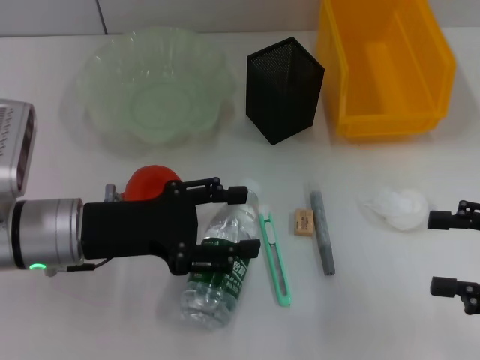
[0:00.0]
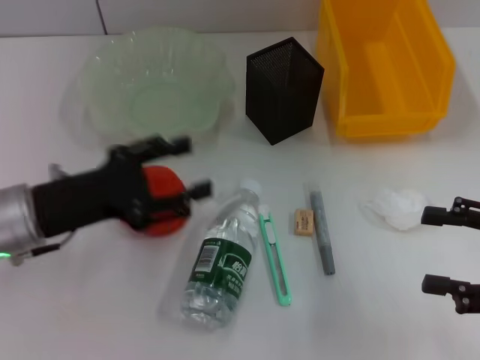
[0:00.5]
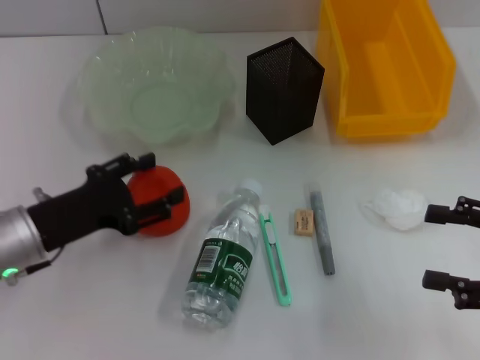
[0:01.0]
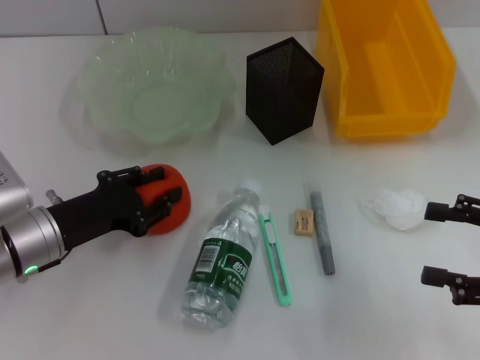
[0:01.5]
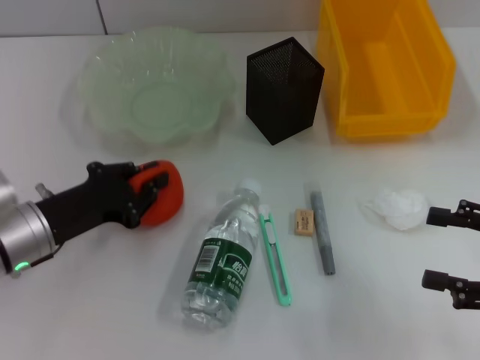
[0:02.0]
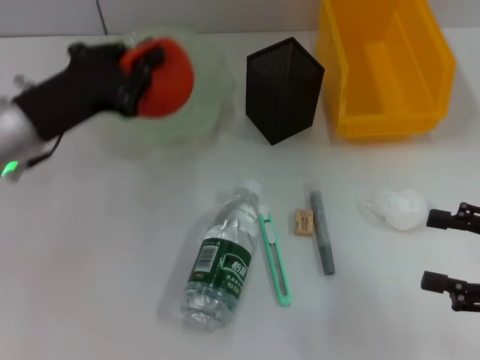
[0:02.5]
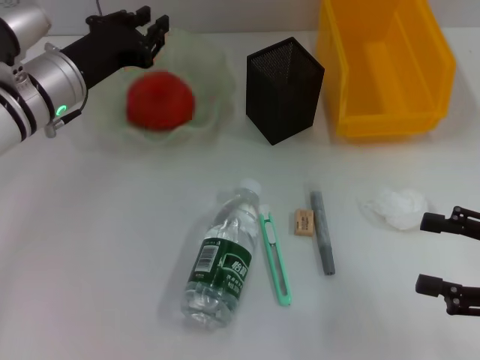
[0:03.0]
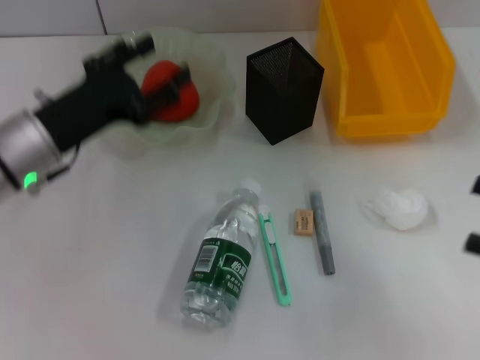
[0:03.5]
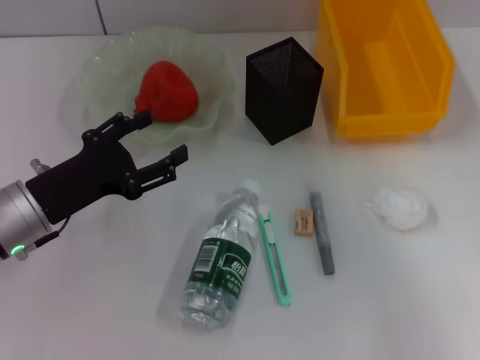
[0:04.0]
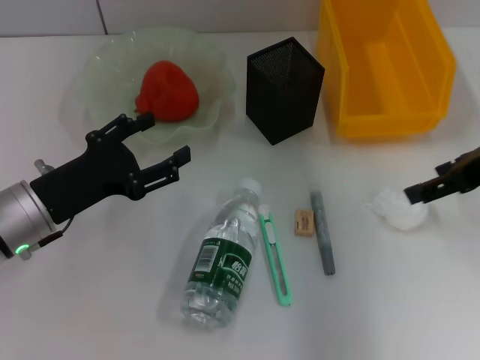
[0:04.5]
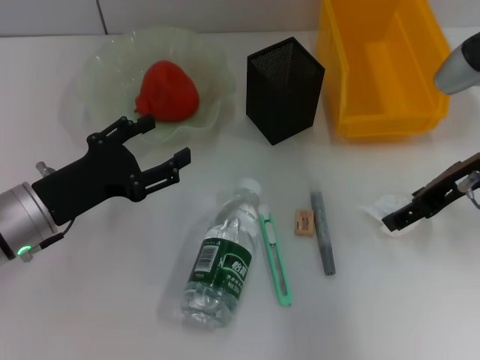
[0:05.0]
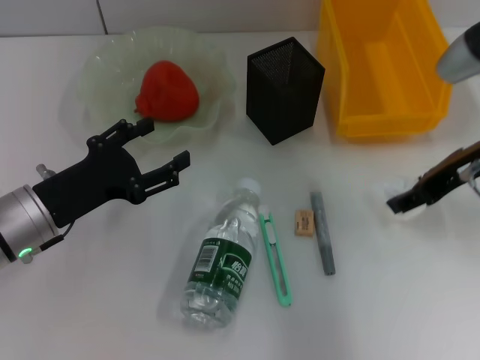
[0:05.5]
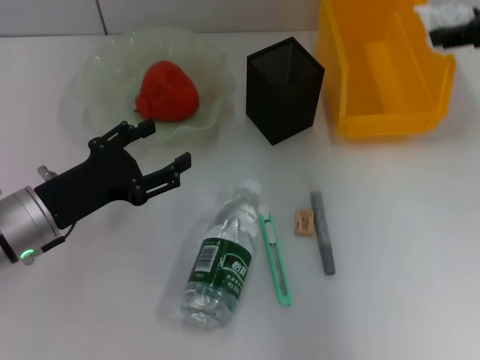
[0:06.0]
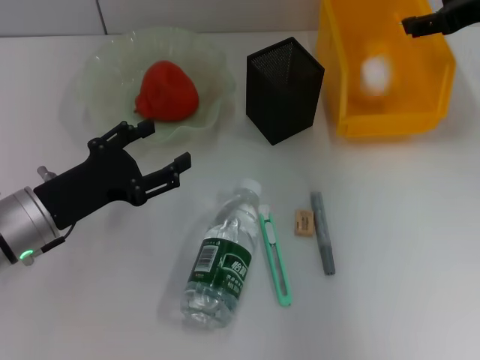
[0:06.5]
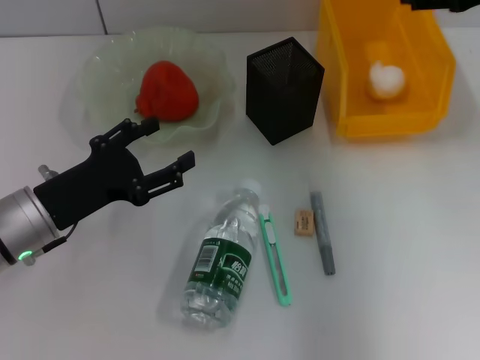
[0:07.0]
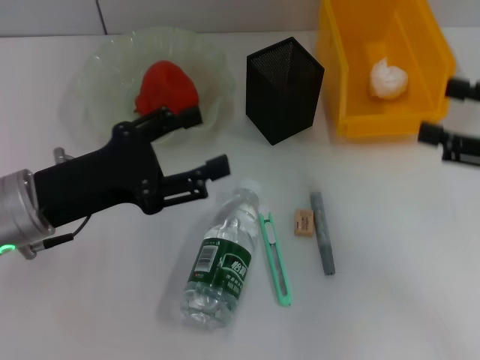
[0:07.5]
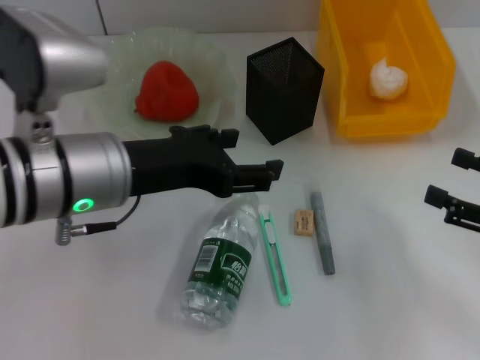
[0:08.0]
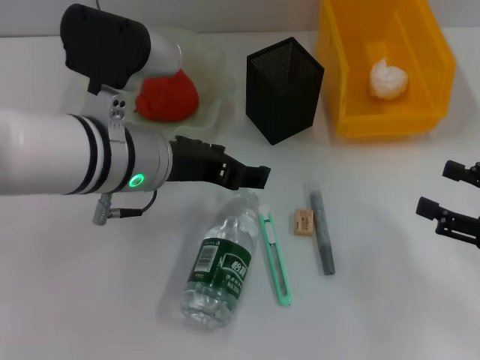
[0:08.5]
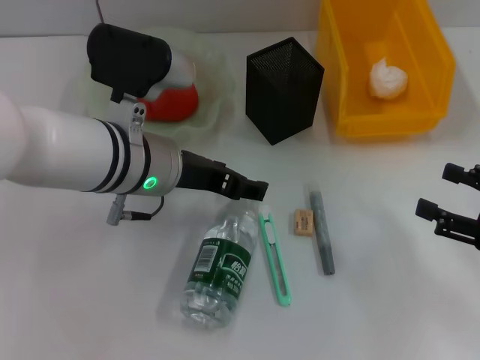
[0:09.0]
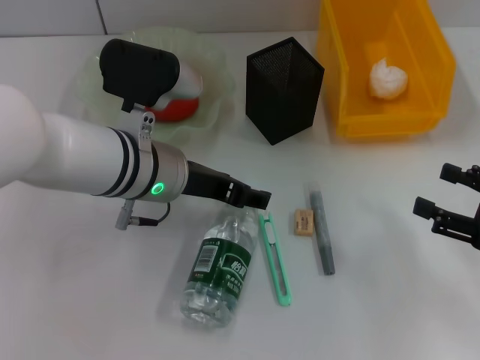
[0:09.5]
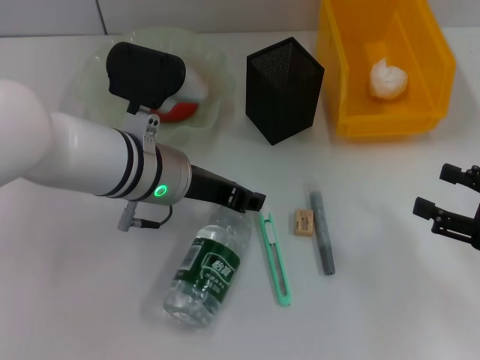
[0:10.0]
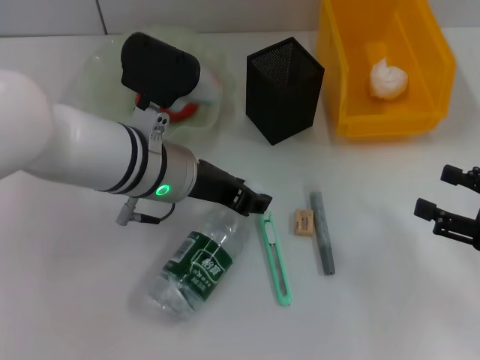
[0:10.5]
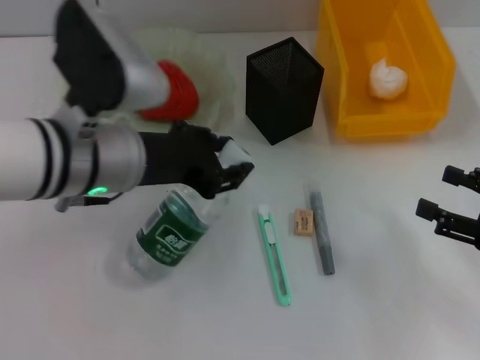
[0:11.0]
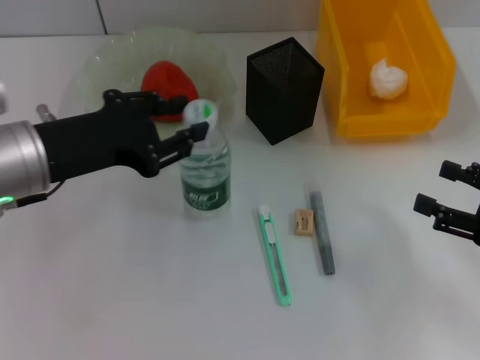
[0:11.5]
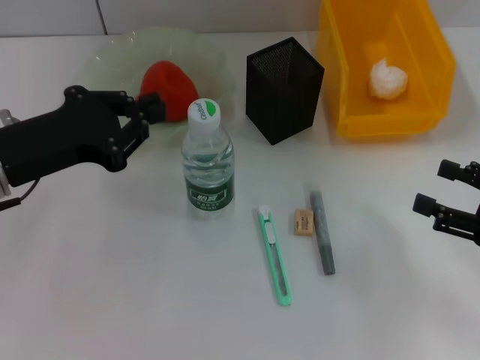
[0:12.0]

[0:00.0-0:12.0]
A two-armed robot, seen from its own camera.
Step, 0:00.0 to 0:01.5: Grab the orange with the left hand.
Step, 0:02.0 to 0:02.5: Place the orange into the fruit bowl with the left hand.
Step, 0:03.5 to 0:04.5: Grab the paper ball with the right hand.
Step, 0:05.5 to 0:06.5: Place the paper ball into the trash can with the right hand.
Step, 0:07.0 to 0:10.0: Grab the water bottle with the left hand.
Step, 0:10.5 to 0:11.5: Place the water bottle on the table with the left hand.
0:00.0 to 0:02.0: The left gripper ends up about 5 cm from where it was, and closes its fingers.
0:02.0 to 0:04.0: The left gripper moves some 10 cm forward and comes back, and opens up; the right gripper shifts approximately 15 cm upward.
0:04.0 to 0:06.0: The right gripper travels forward and to the left by about 15 cm, and closes its fingers.
0:06.0 to 0:08.0: The right gripper shifts some 25 cm downward and backward, and opens its fingers. Meanwhile the left gripper is displaced upward and to the right by approximately 15 cm.
0:08.0 to 0:10.0: The left gripper is displaced downward and forward by some 10 cm.
0:10.0 to 0:12.0: The left gripper goes about 15 cm to the left, and closes up.

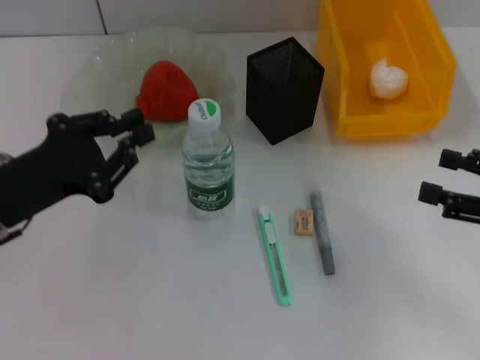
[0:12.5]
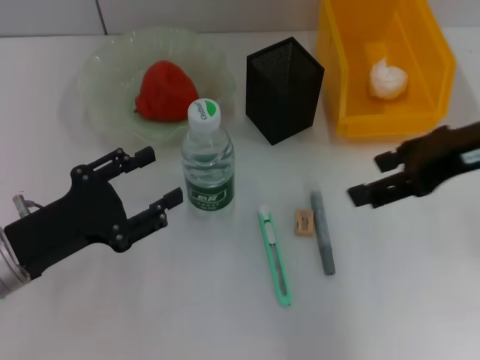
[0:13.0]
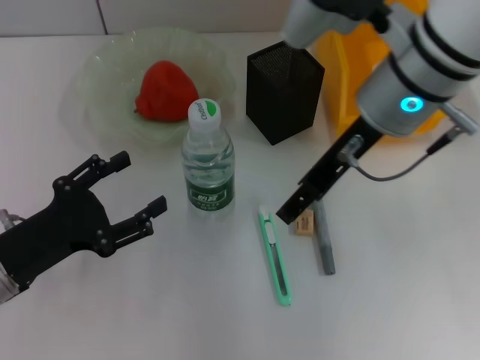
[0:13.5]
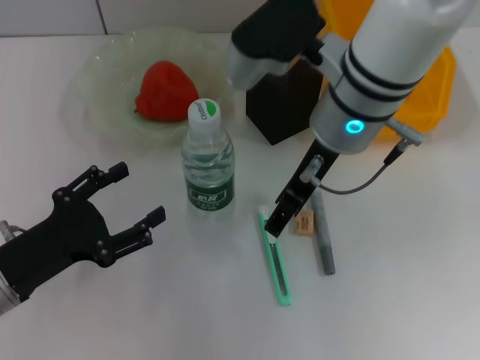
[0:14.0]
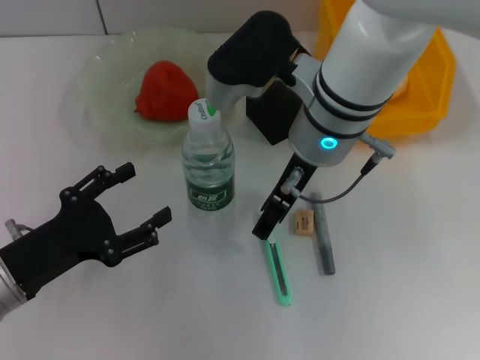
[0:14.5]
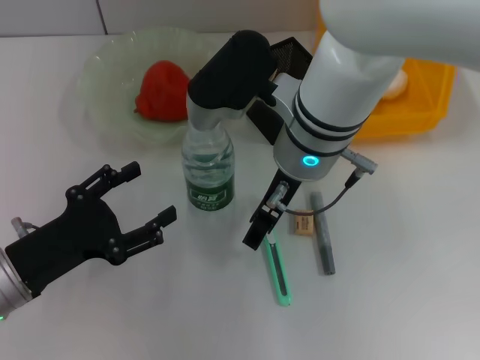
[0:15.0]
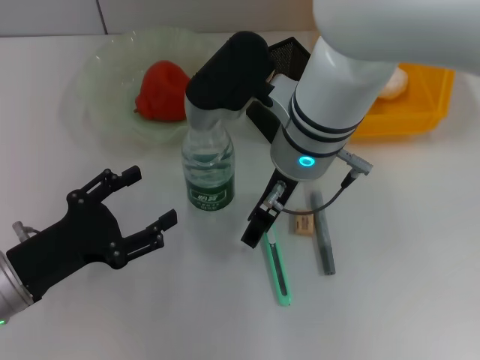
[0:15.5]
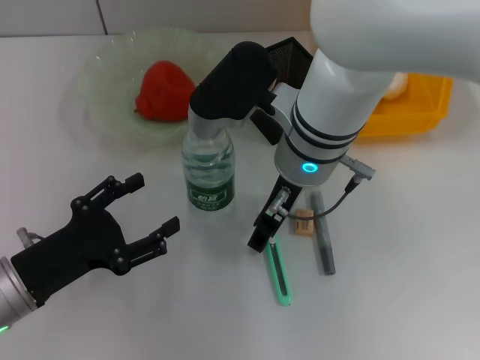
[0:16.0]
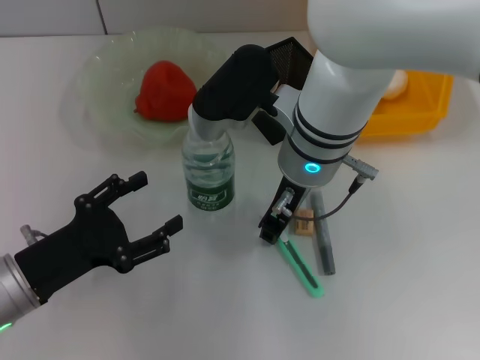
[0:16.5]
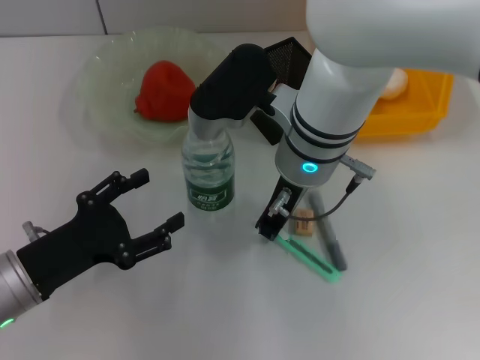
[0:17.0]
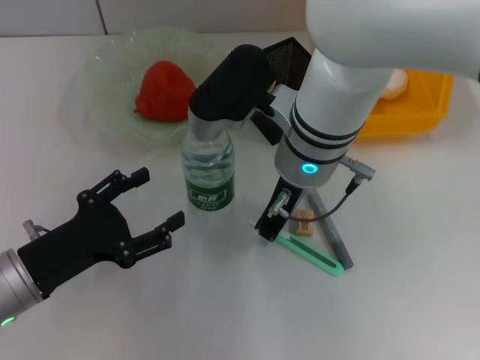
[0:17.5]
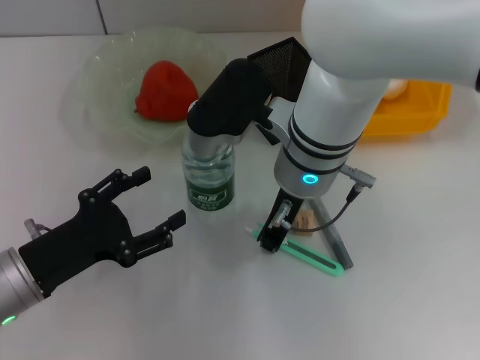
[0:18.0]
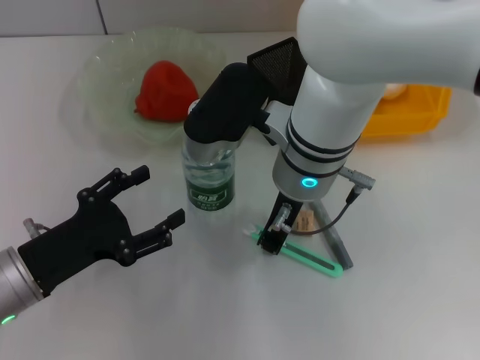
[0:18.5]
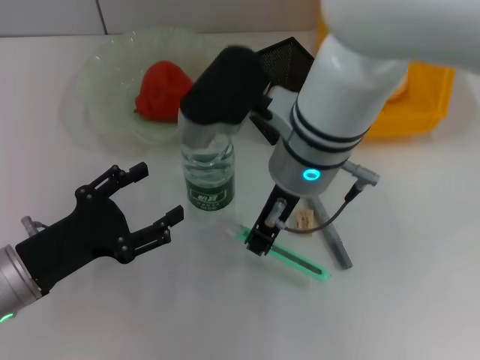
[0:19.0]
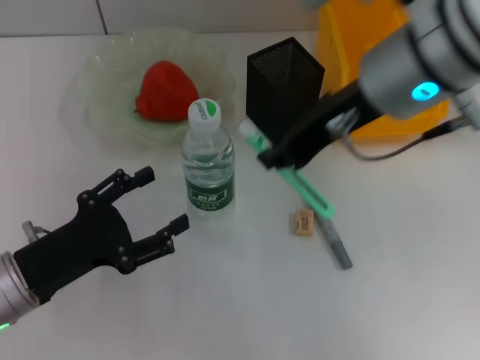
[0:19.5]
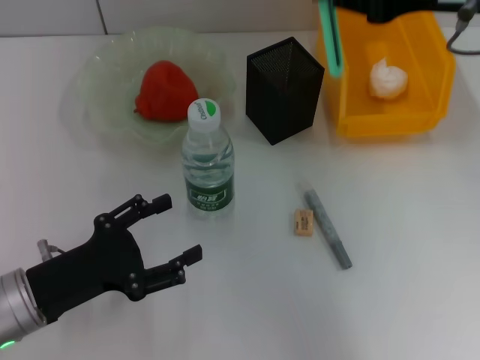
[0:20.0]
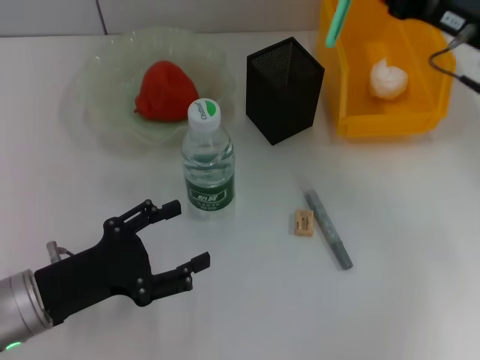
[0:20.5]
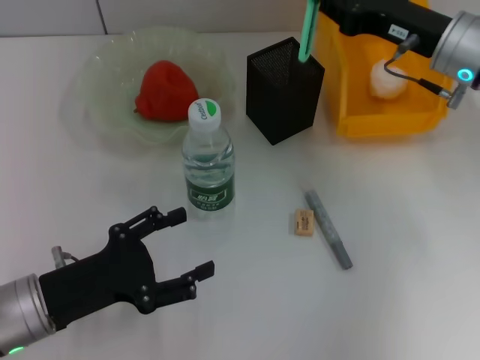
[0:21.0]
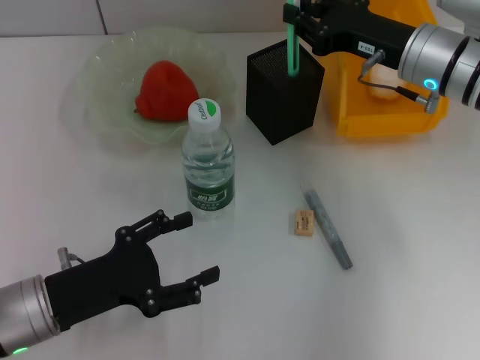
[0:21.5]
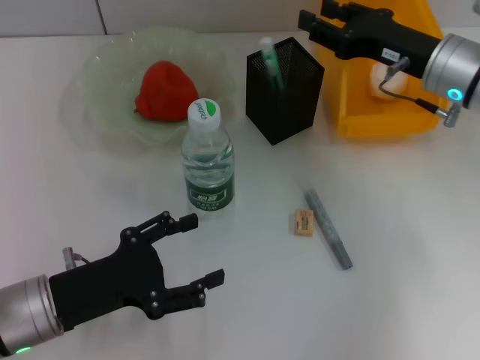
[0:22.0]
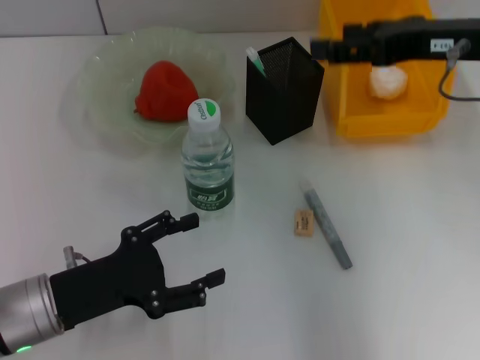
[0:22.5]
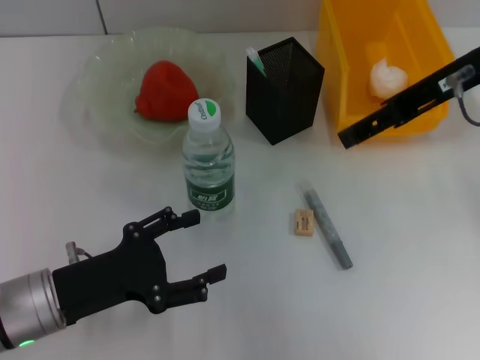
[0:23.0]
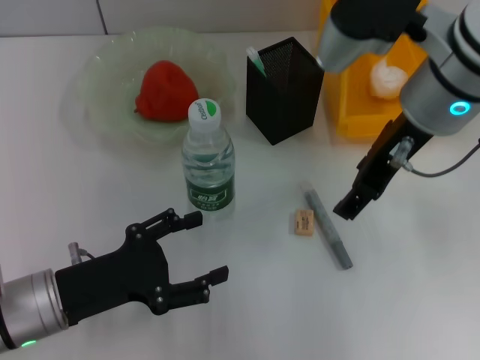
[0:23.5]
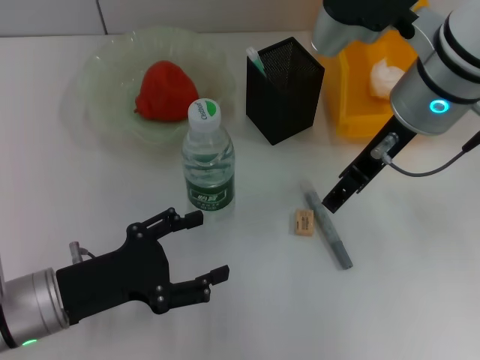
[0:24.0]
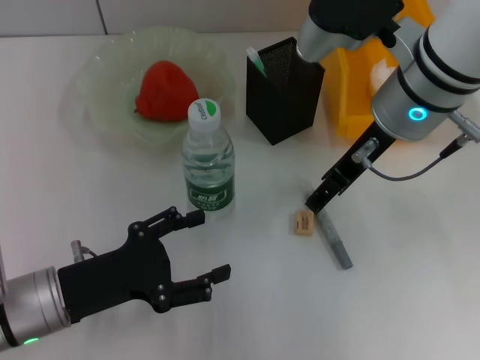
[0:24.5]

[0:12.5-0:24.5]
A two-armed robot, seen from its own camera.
Step, 0:12.5 to 0:18.5: Grab the blue utility knife with the right hand.
Step, 0:19.0 to 0:22.0: Place the blue utility knife into the pen holder with the right hand.
0:12.5 to 0:14.5: The left gripper heads downward, covering about 5 cm, and opens; the right gripper shifts about 30 cm to the left and forward.
0:14.5 to 0:16.5: The right gripper closes up.
0:16.5 to 0:18.5: The right gripper closes.
0:18.5 to 0:20.5: The right gripper goes about 20 cm to the right.
0:20.5 to 0:22.5: The right gripper moves upward, some 5 cm, and opens up.
0:22.5 to 0:24.5: The right gripper moves to the left, some 10 cm.

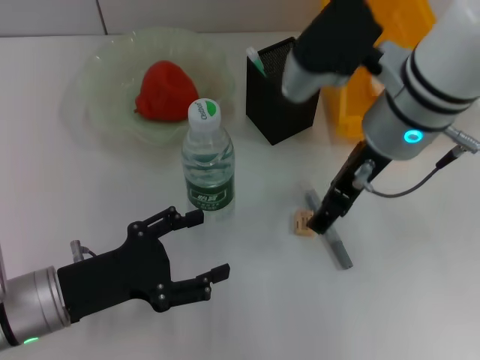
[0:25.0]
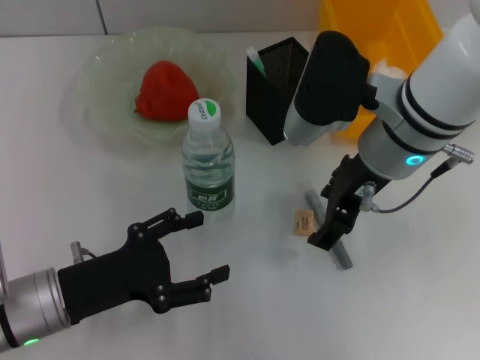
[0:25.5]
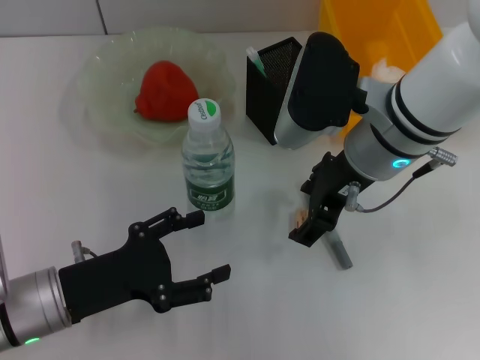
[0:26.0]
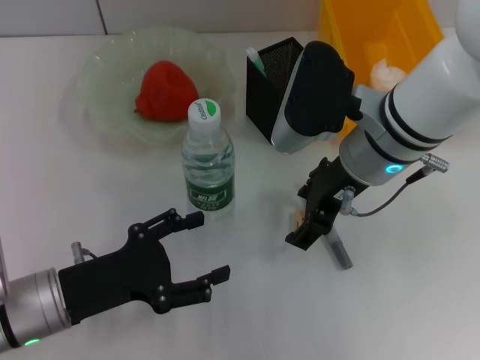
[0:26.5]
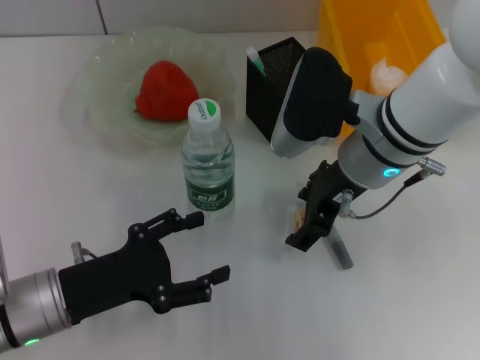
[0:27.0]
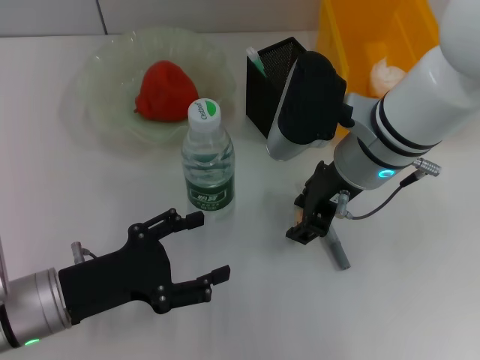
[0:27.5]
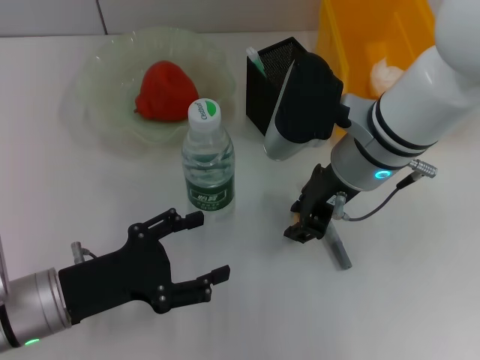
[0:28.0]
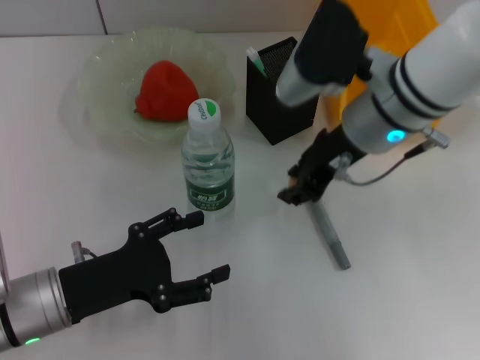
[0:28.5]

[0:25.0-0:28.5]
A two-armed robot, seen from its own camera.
Step, 0:25.0 to 0:27.5: Grab the eraser with the right hand.
0:25.0 to 0:27.0: There are only small adjustments of the grippers.
0:27.0 to 0:28.5: The right gripper closes up.
